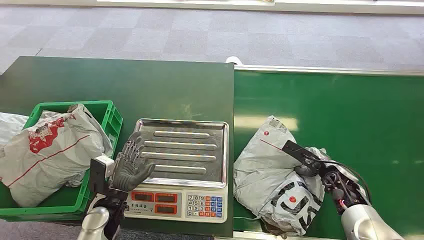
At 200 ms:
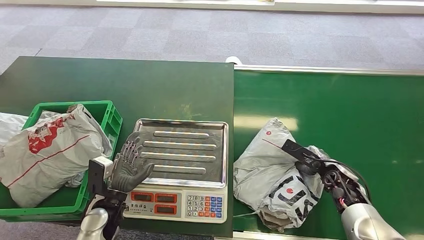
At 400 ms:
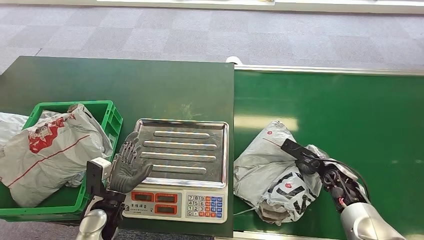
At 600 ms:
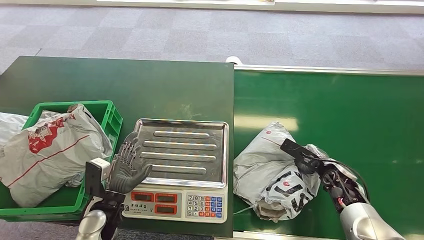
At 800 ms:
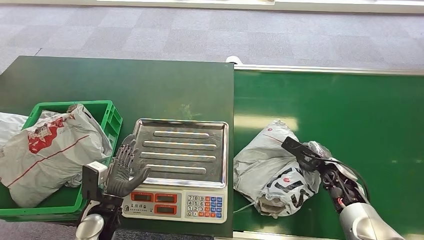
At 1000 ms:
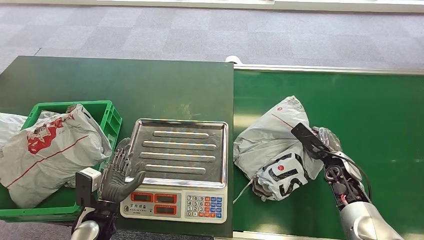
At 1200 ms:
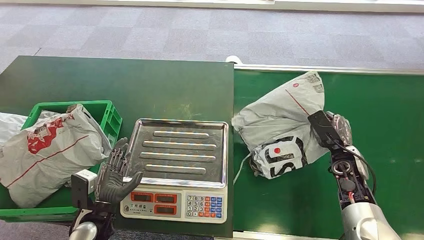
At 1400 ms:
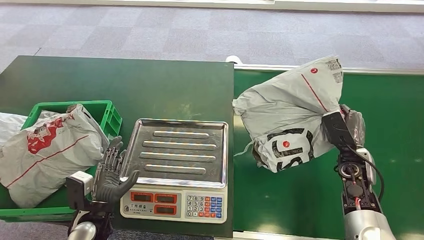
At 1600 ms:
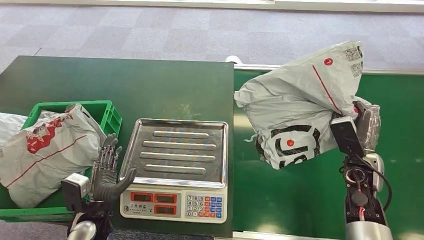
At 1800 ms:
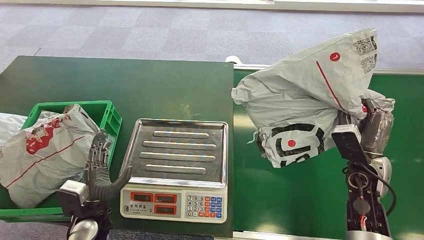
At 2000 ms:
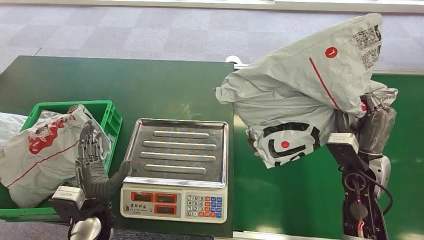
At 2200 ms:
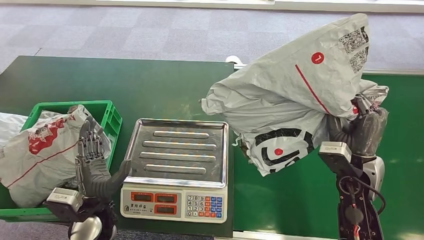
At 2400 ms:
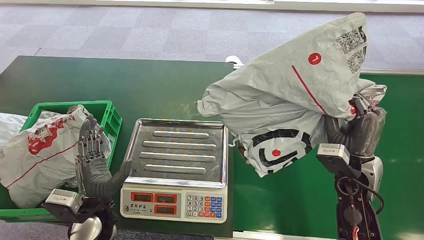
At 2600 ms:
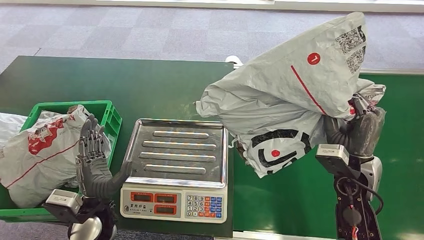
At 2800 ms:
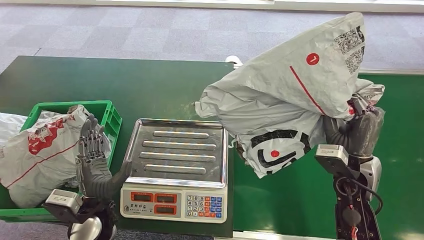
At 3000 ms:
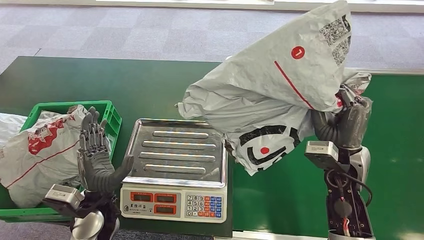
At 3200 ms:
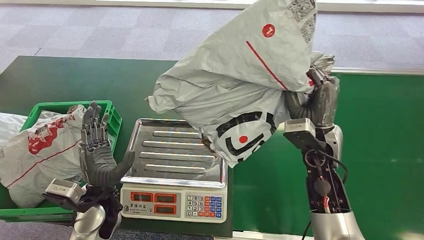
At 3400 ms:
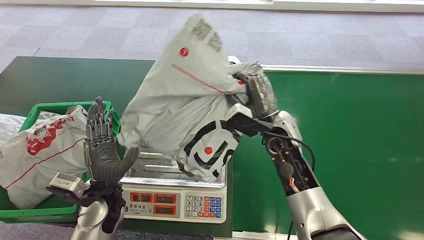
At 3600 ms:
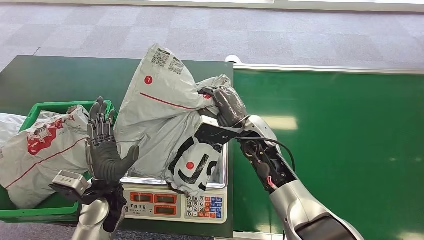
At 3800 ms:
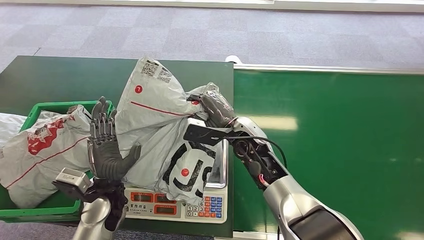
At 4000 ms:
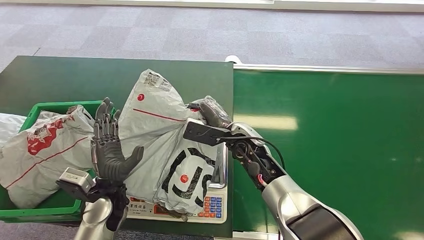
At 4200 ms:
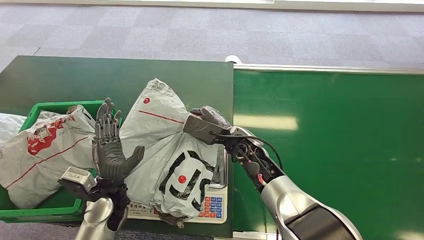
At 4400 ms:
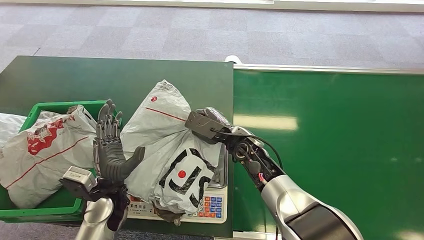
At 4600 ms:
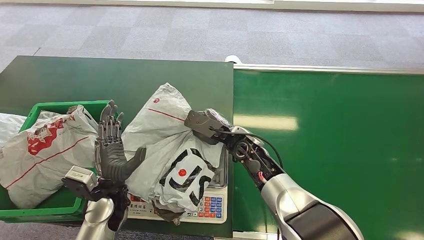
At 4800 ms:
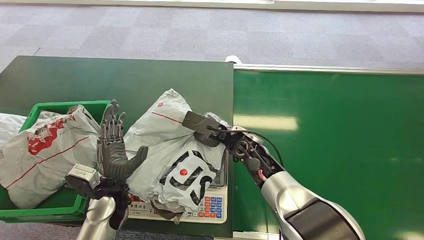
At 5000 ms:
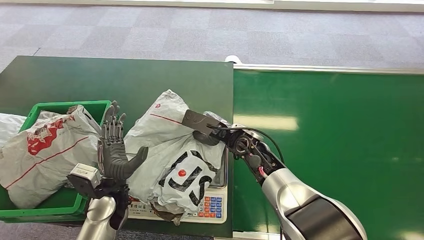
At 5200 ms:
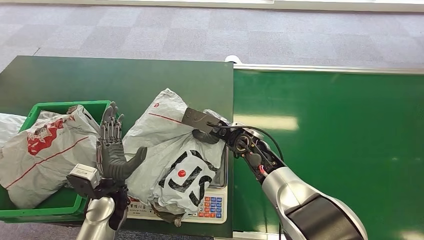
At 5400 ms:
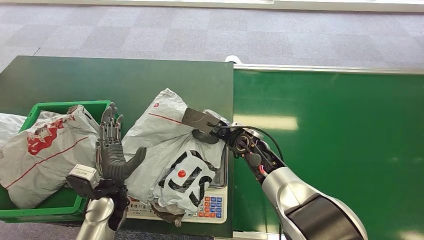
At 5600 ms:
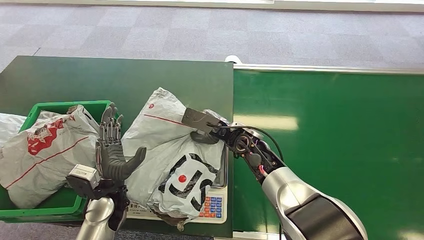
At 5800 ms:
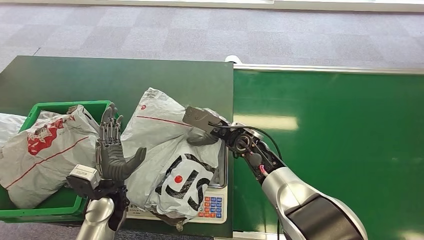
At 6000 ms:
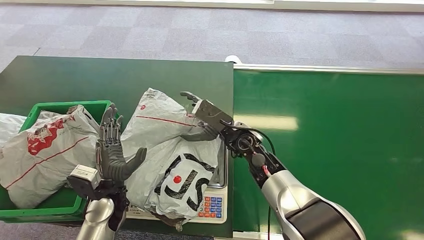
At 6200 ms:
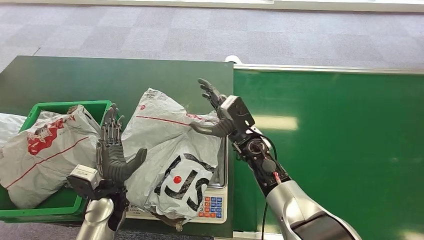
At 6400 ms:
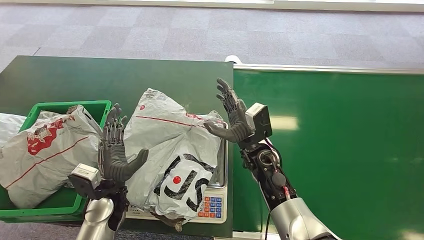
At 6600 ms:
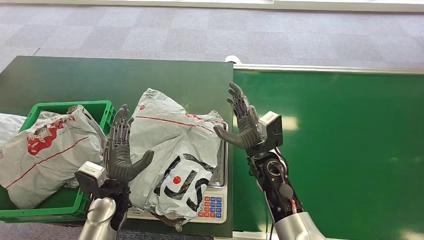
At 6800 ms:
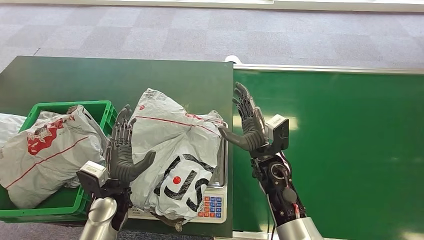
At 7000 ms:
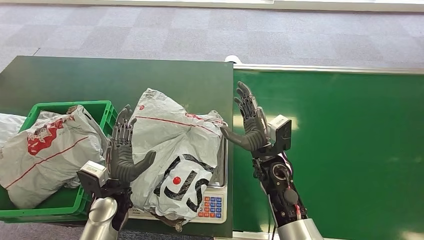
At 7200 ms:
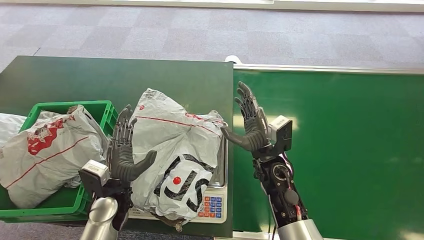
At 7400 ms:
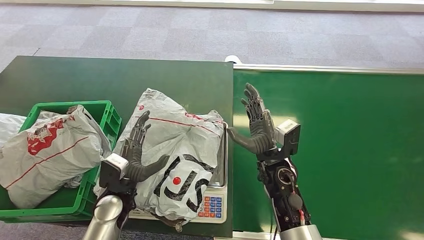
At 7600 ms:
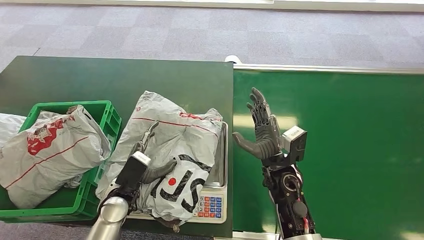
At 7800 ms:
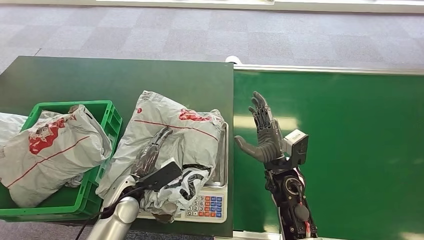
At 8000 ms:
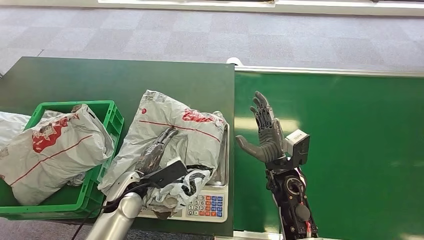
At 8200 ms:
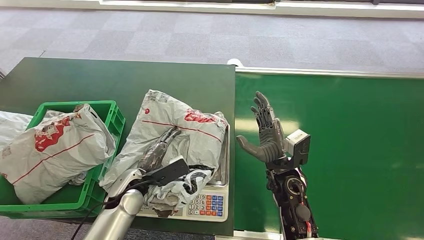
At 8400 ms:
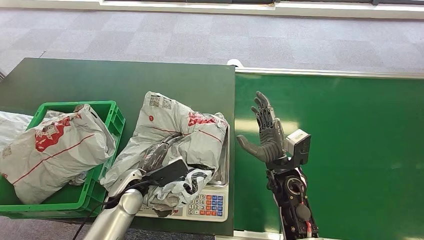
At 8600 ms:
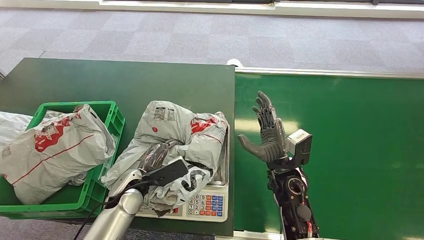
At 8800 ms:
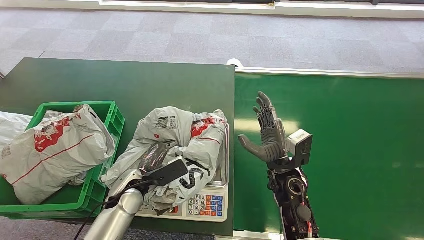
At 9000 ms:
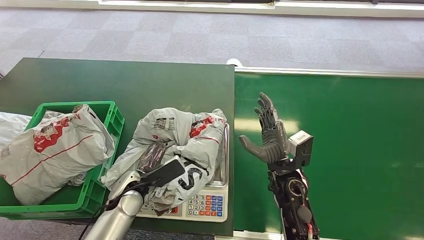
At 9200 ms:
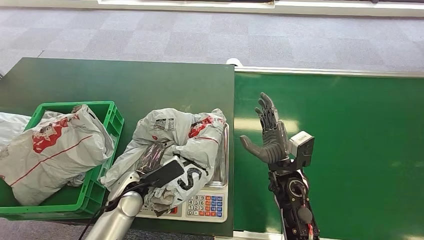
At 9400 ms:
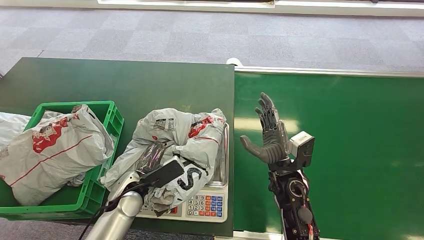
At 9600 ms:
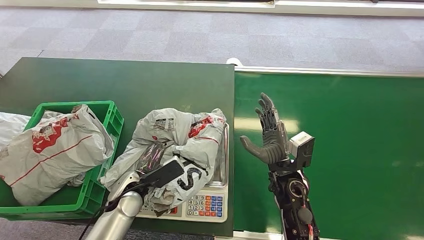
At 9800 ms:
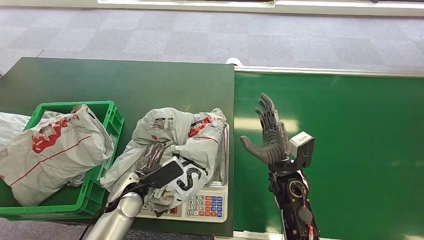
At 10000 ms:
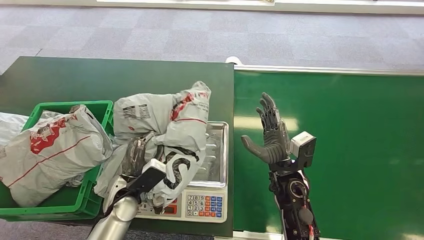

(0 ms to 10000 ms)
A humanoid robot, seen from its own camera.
Step, 0 ms - 1800 ms: Pick up the package from the conveyor belt.
Step, 3400 ms - 6000 ms: Place the package onto the inbound machine.
4200 ms - 5800 ms: The hands make only small movements.
5800 ms - 7200 ms: The right hand shifts roughly 5 cm backward.

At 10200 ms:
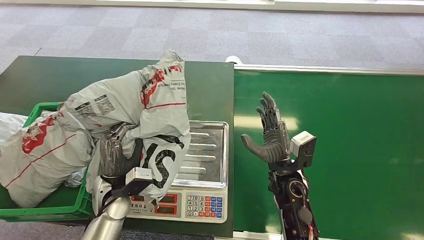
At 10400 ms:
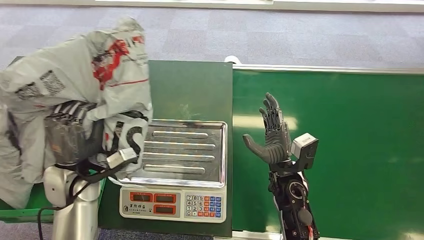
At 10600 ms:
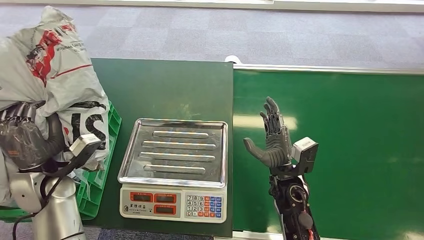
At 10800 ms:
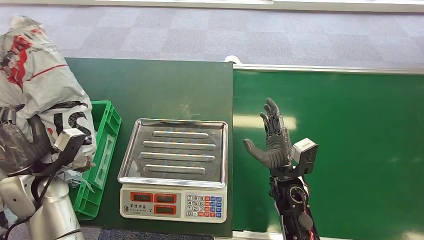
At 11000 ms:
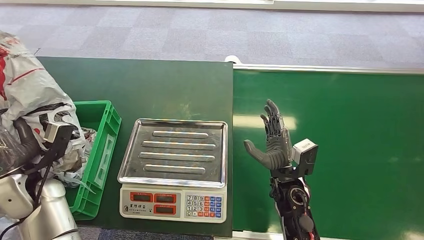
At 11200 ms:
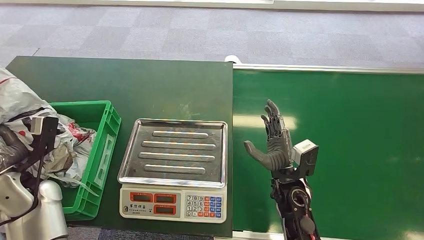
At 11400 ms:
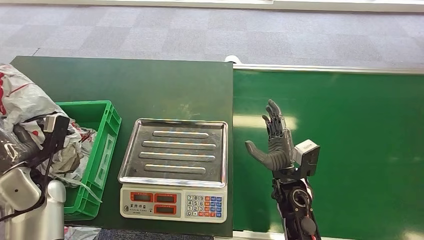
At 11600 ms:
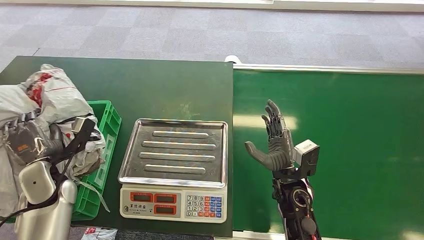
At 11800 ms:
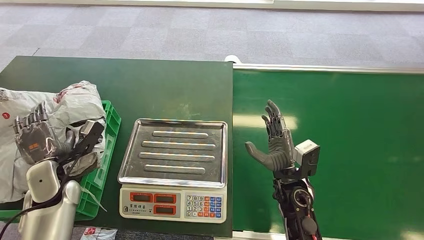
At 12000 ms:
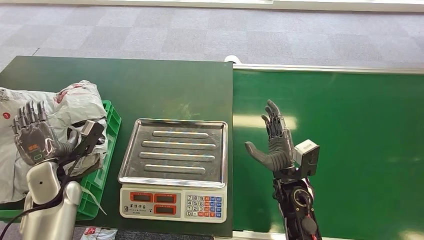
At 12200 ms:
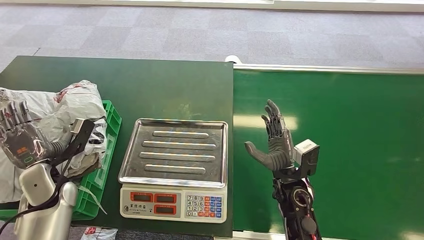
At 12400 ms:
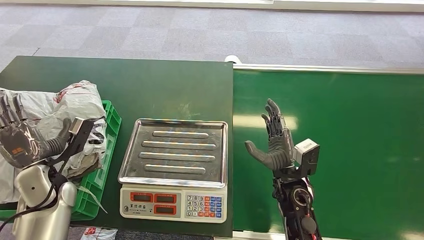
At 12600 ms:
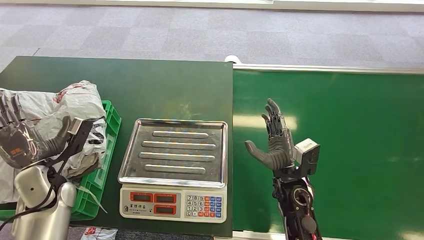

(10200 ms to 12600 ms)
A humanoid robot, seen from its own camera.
Step, 11000 ms - 12600 ms: Place the package into the parcel locker.
11400 ms - 12600 ms: The hands stay close to where they were, moving slightly.
